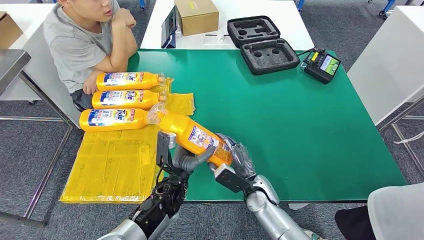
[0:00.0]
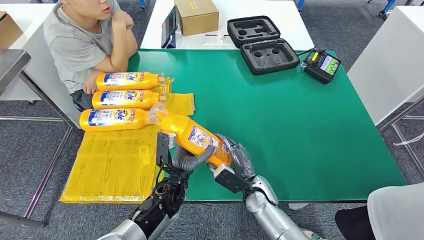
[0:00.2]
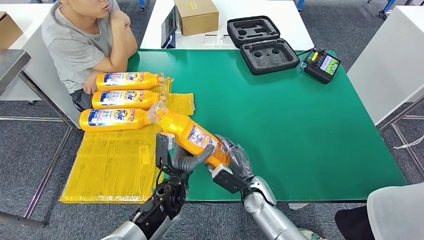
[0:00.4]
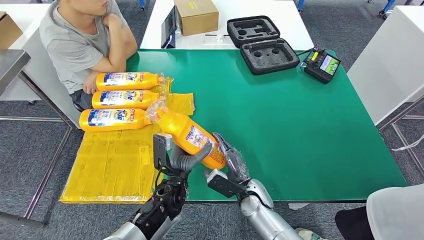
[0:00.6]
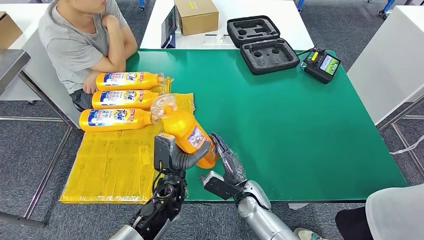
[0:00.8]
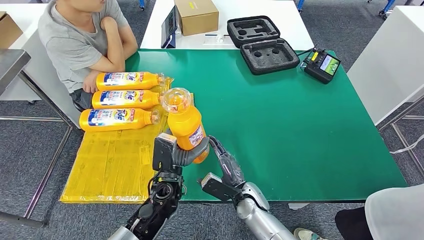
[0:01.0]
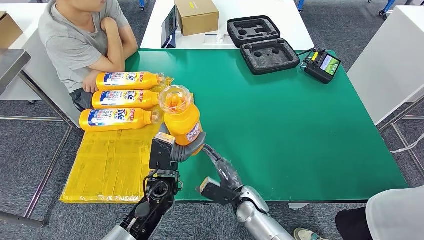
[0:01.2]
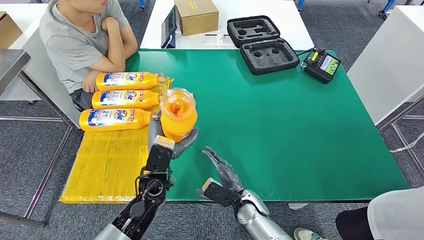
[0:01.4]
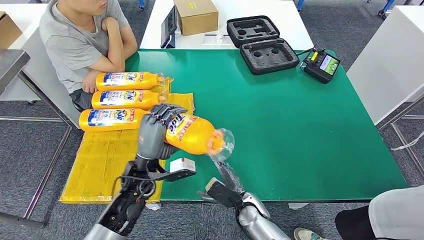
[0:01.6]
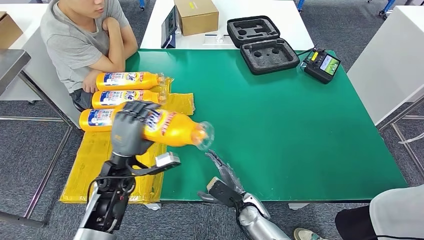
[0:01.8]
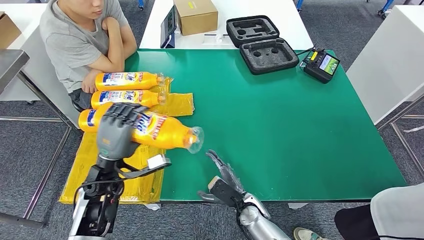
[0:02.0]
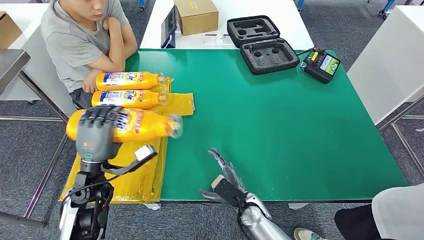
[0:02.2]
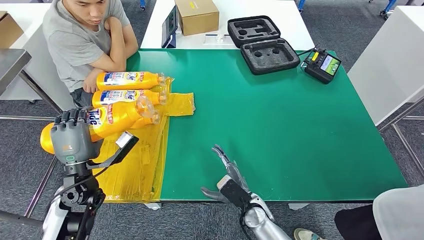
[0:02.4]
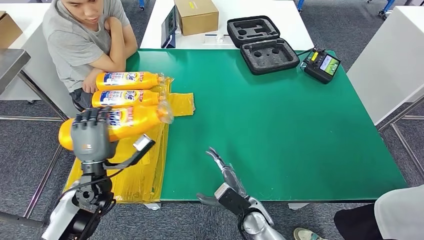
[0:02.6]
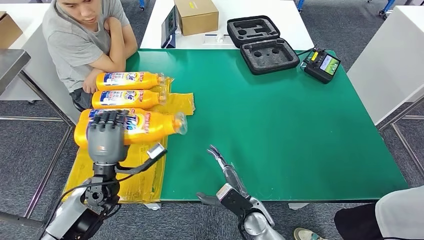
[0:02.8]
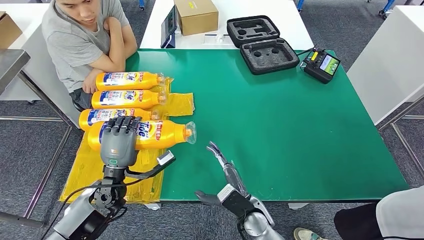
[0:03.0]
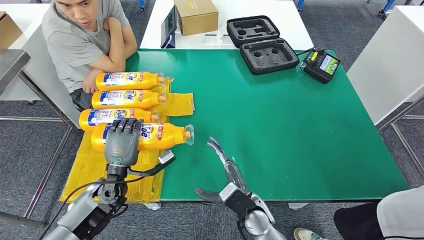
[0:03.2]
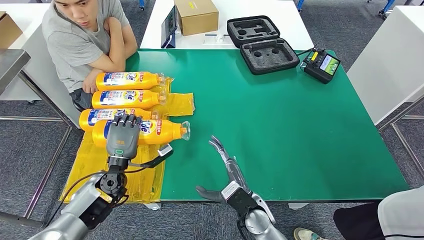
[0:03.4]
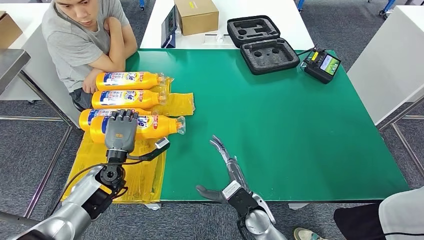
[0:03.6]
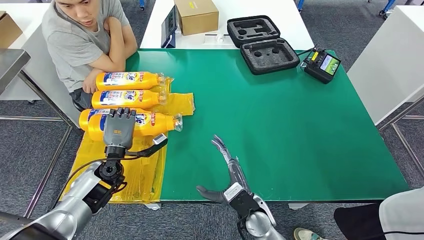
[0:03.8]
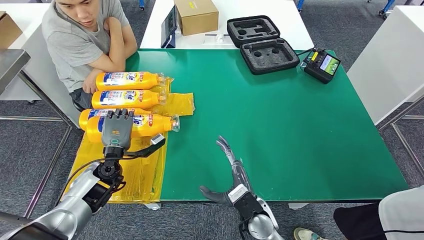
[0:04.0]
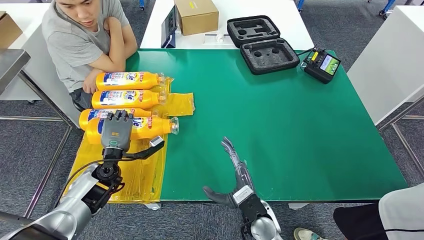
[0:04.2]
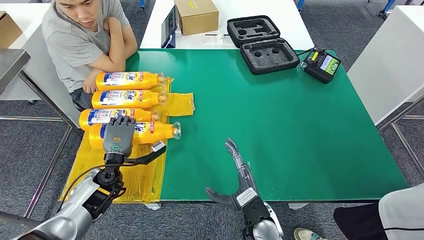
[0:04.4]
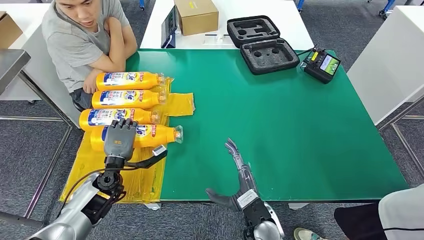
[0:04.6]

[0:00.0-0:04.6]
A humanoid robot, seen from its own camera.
Step, 0:00.6 to 0:04.4: Flip the fast-moving consumer goods bottle to the front side.
0:00.0 to 0:01.6: The right hand ends up roughly 5 cm from where it was. Meanwhile the left hand moves to the left and upward, roughly 10 cm.
0:01.6 to 0:03.0: The left hand heads to the left, covering about 5 cm.
0:03.0 to 0:04.6: The left hand travels downward by some 5 cm.
